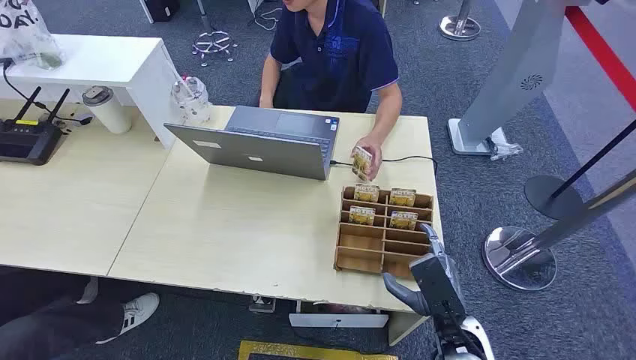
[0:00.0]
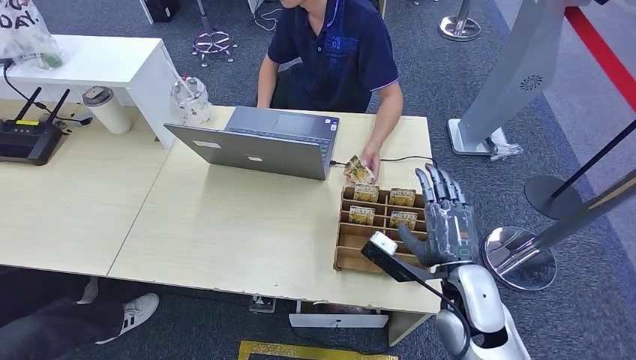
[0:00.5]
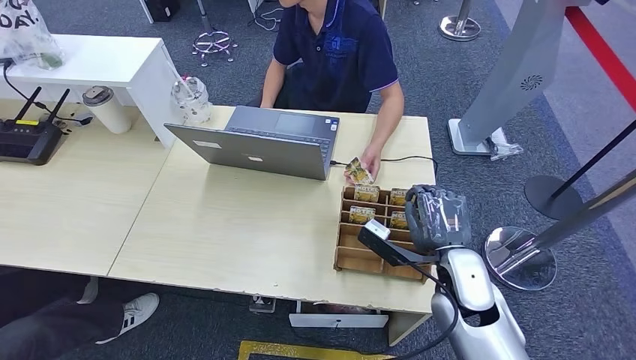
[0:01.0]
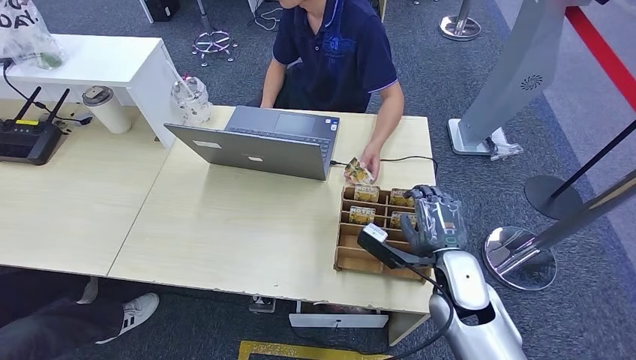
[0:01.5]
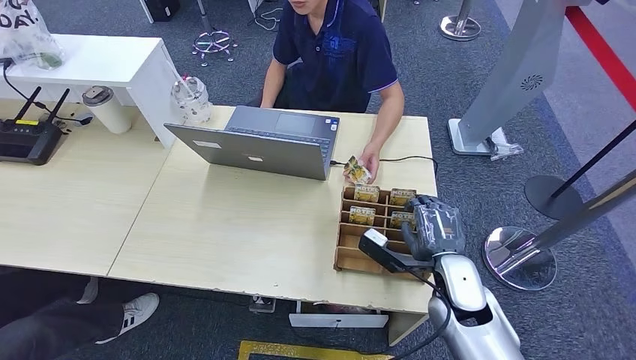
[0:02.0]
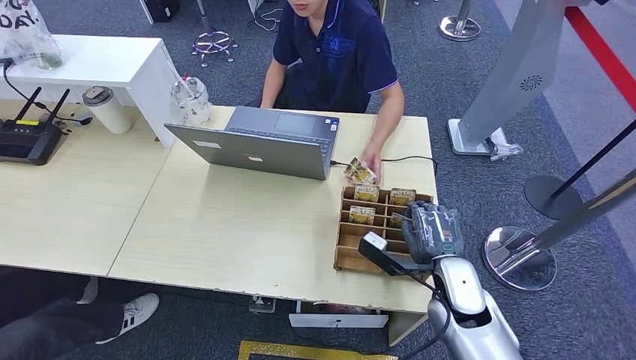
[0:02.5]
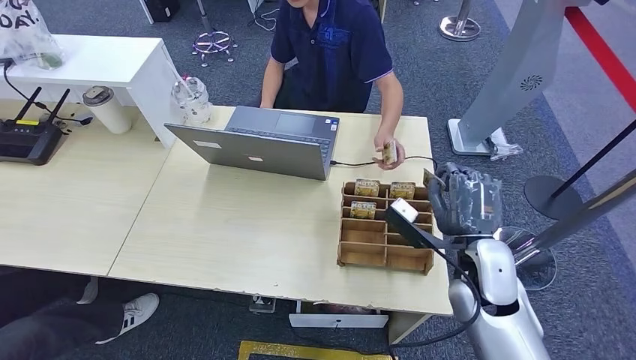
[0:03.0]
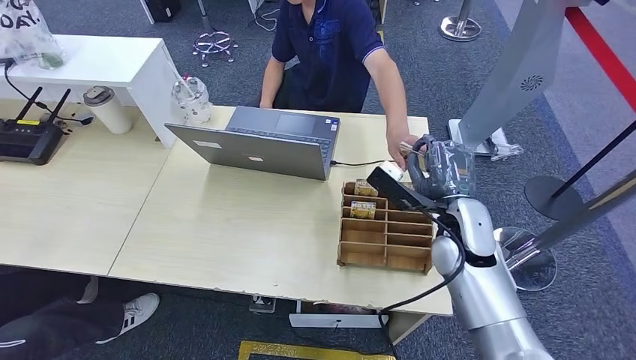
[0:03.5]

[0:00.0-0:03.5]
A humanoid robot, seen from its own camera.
Step, 0:00.0 to 0:02.5: Pick up the key card from the card box.
Step, 0:03.0 to 0:03.5: Hand the key card to the target.
0:02.0 to 0:03.5: The right hand moves upward and forward, about 10 cm.

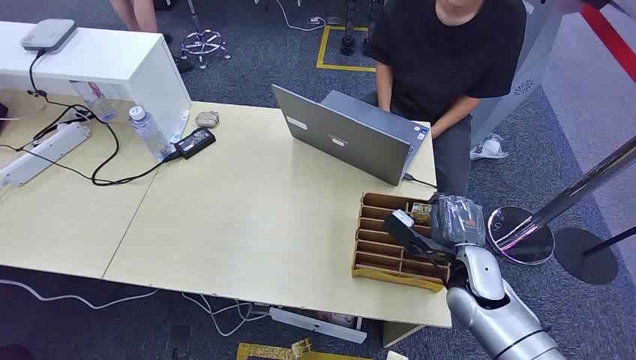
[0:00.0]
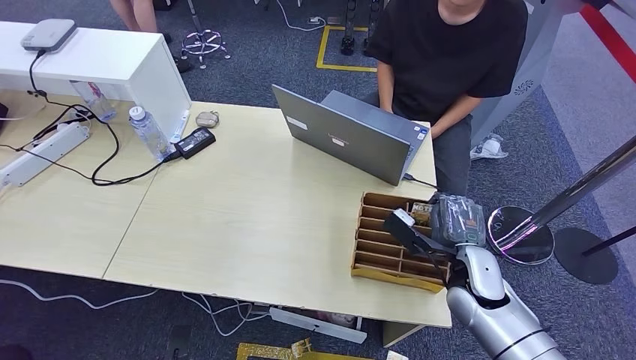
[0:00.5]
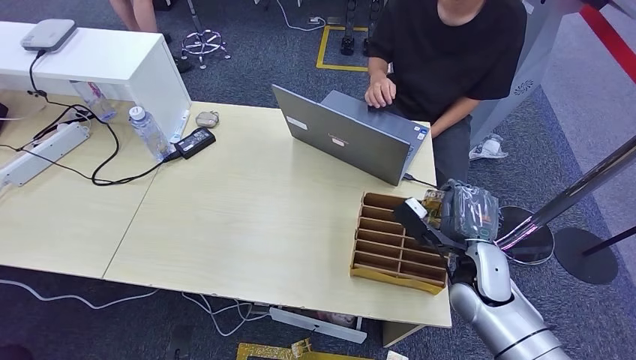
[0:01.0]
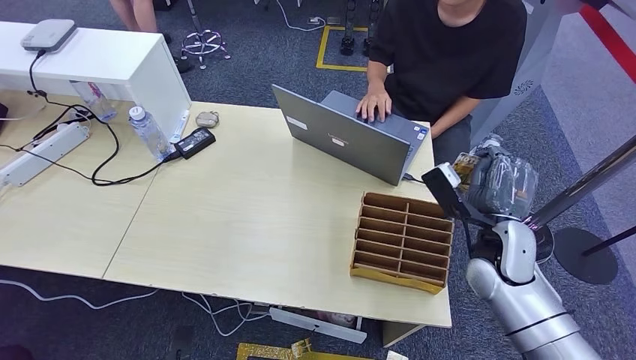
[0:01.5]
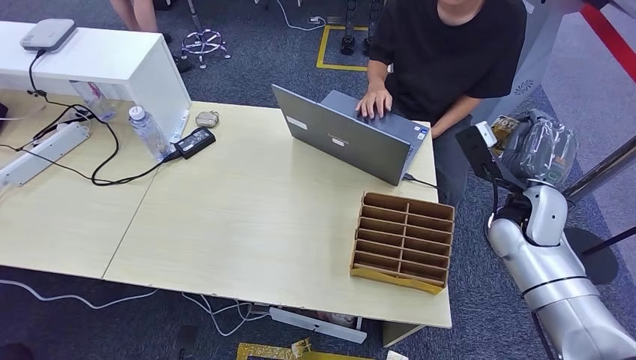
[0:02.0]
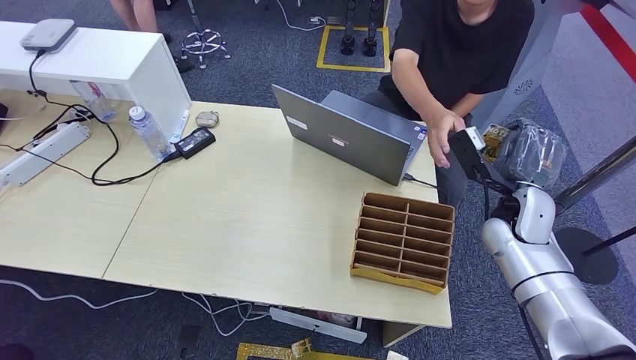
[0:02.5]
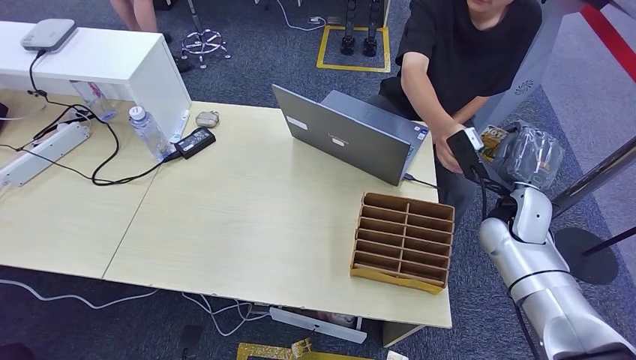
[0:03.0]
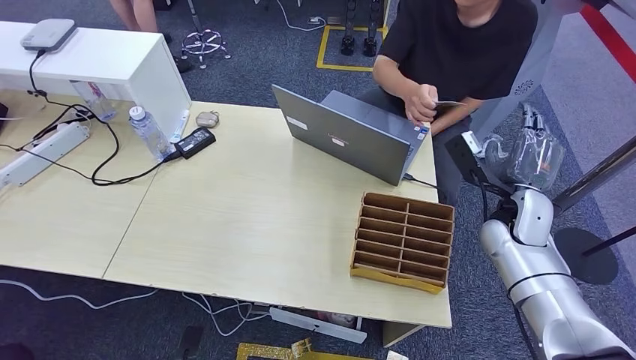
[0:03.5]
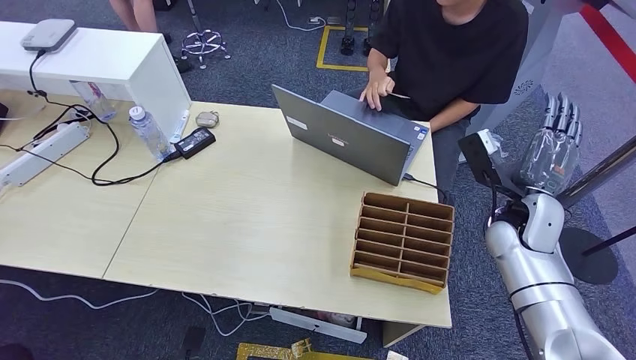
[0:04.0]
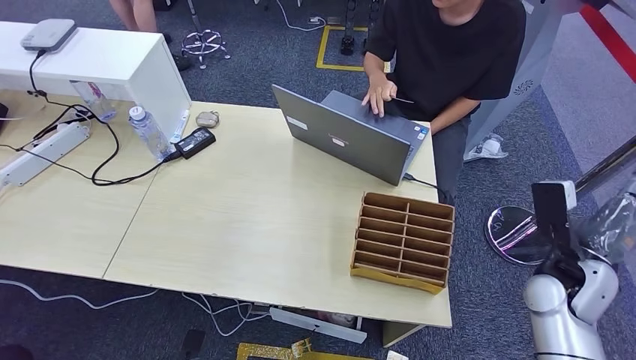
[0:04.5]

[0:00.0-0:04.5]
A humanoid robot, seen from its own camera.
Step, 0:00.0 to 0:02.0: Pick up the key card from the card box.
Step, 0:02.5 to 0:04.5: Hand the key card to the target.
0:02.0 to 0:04.5: The right hand heads backward, to the right and downward, covering approximately 10 cm.
